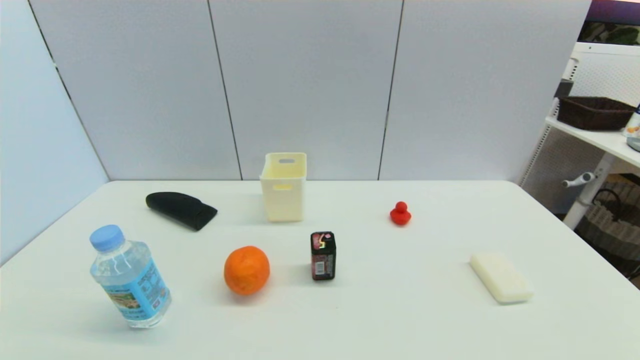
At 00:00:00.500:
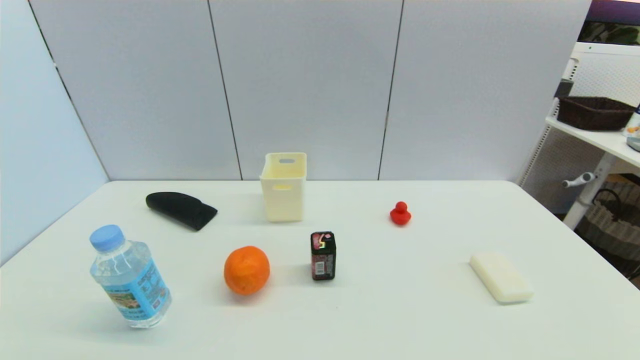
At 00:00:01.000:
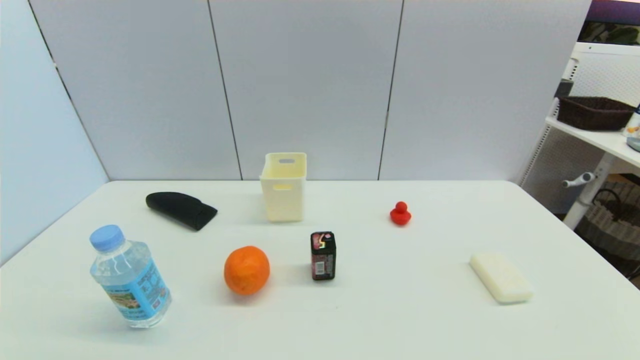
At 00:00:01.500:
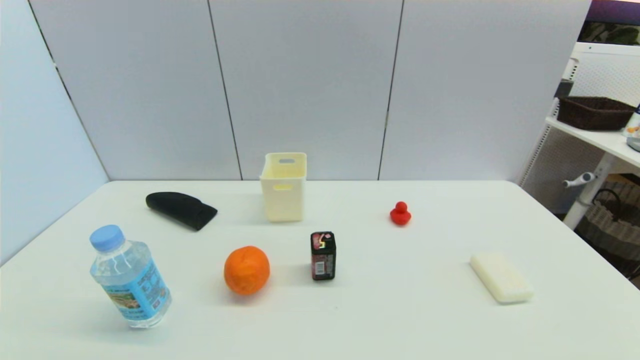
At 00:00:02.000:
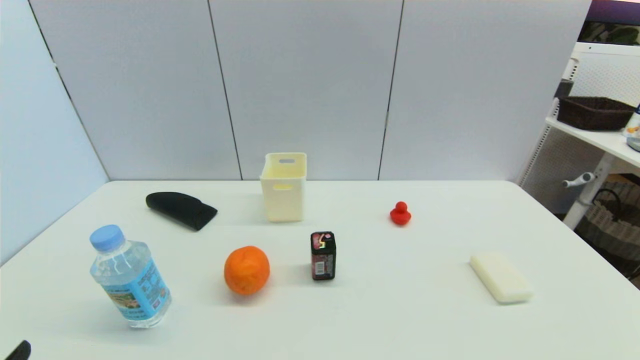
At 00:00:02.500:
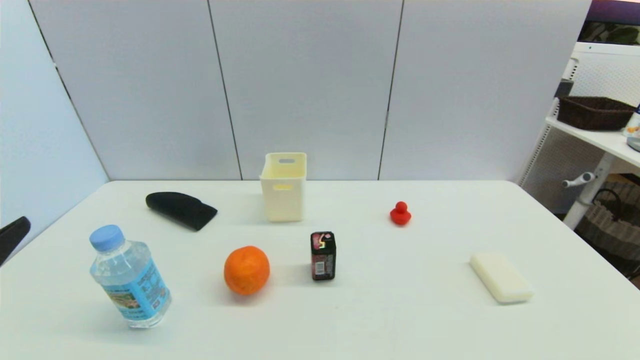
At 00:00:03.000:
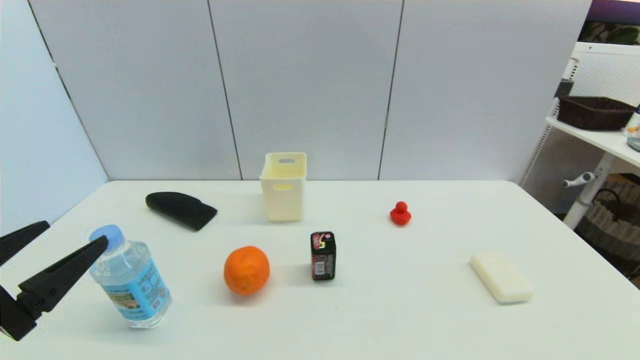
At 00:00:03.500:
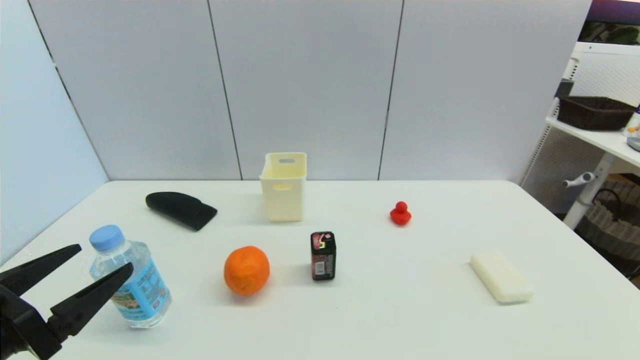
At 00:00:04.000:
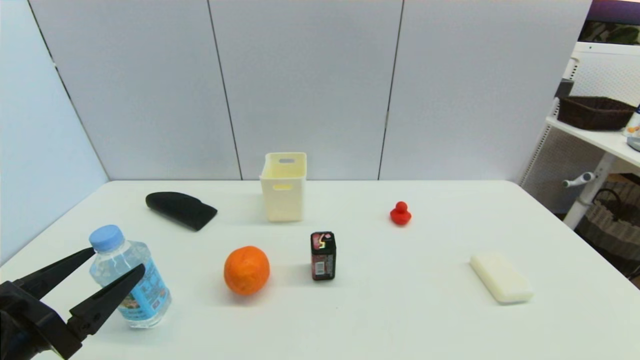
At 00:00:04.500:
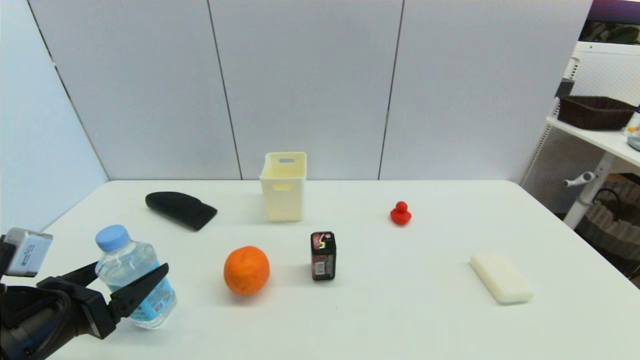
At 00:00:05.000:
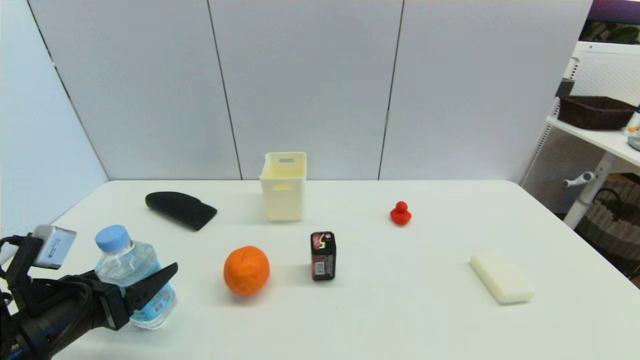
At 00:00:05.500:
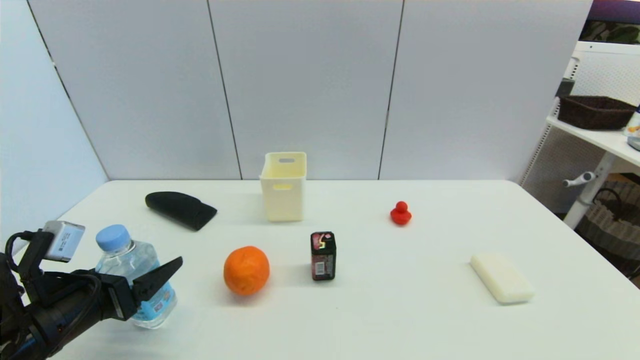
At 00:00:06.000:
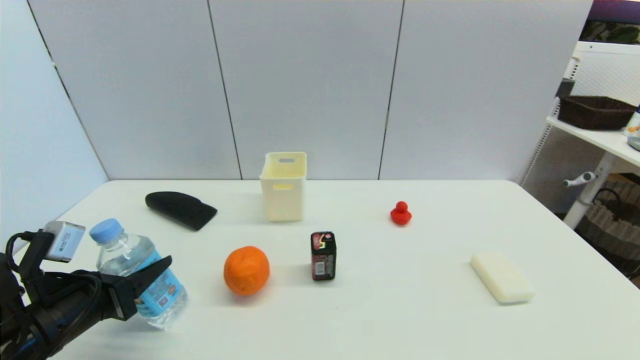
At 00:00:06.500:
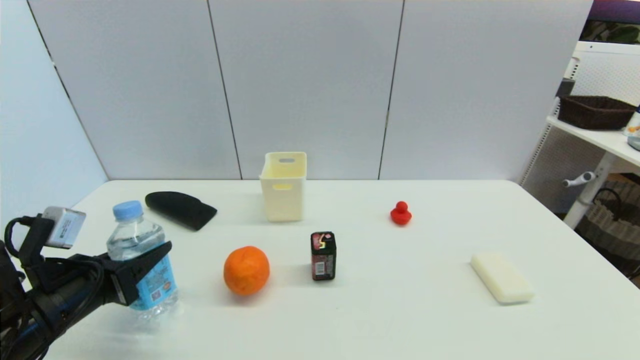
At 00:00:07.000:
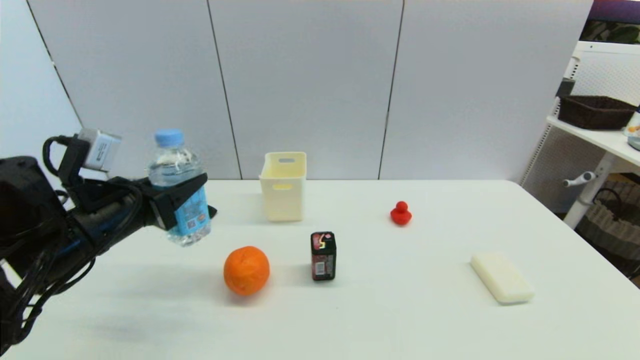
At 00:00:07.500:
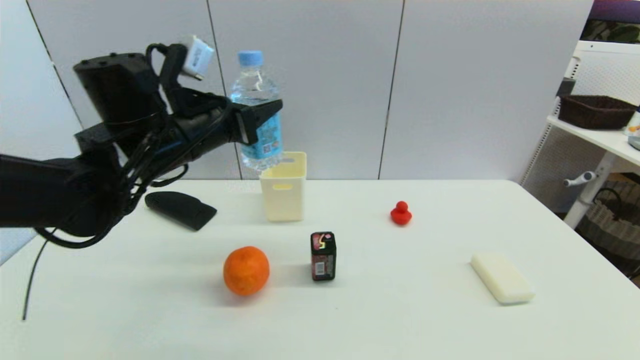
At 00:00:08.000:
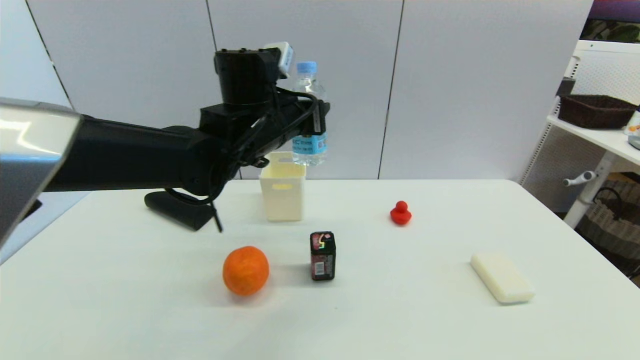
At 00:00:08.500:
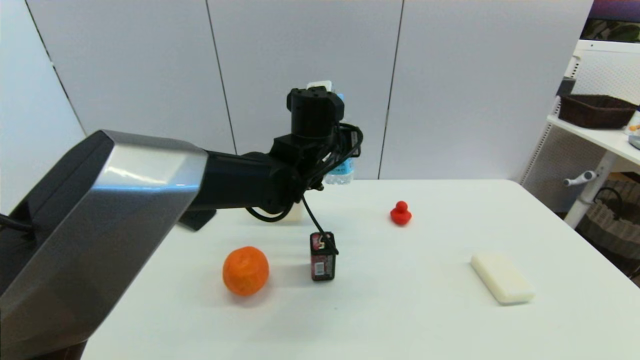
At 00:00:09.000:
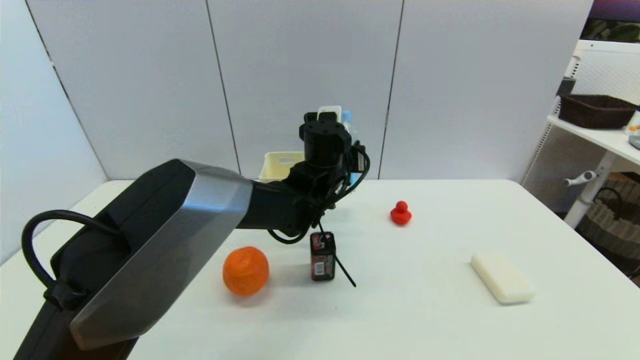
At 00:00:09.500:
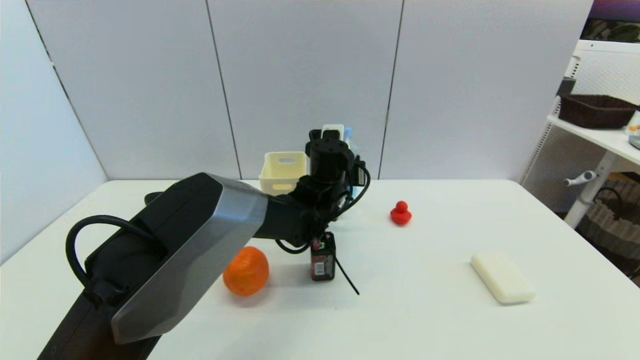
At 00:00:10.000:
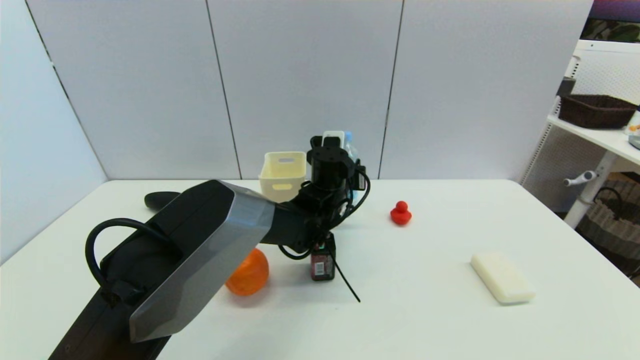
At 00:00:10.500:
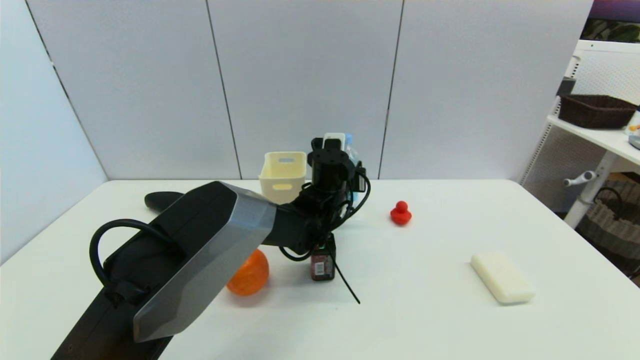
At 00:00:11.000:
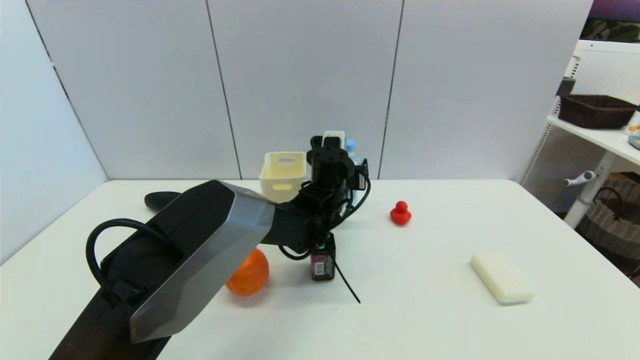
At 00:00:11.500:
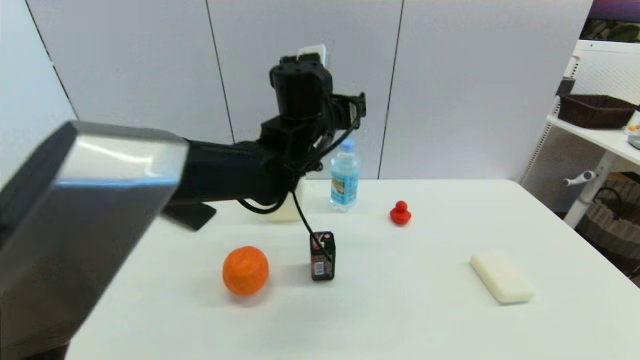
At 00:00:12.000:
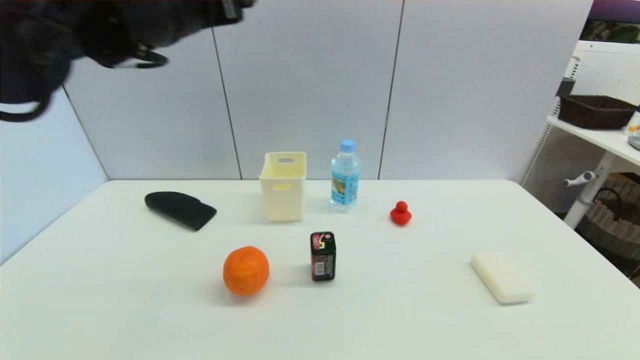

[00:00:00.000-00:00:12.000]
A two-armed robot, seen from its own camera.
Step, 00:00:02.000 to 00:00:06.000: Grasp the soda water with left gripper.
Step, 00:00:06.500 to 00:00:10.500: Place the soda water on the table with left gripper.
00:00:02.000 to 00:00:04.000: The left gripper travels forward by roughly 10 cm.
00:00:04.000 to 00:00:06.000: The left gripper shifts roughly 5 cm forward, and closes its fingers.
00:00:06.000 to 00:00:08.000: The left gripper moves to the right, forward and upward, about 35 cm.
00:00:08.000 to 00:00:10.000: The left gripper heads downward and to the right, covering approximately 15 cm.
00:00:10.000 to 00:00:12.000: The left gripper shifts about 35 cm upward, to the left and backward, and opens up.

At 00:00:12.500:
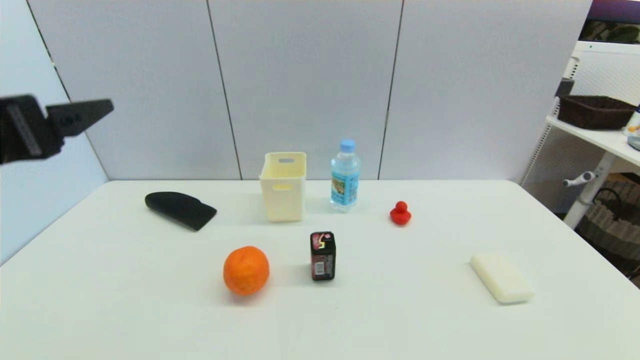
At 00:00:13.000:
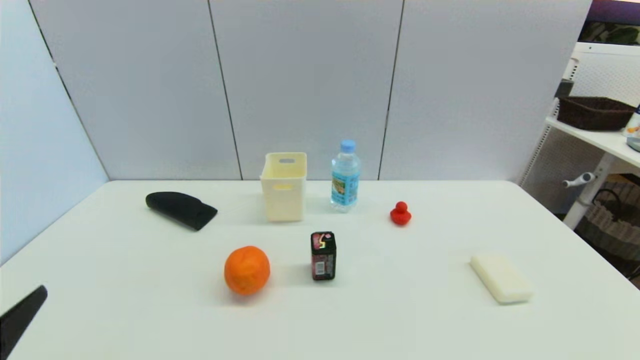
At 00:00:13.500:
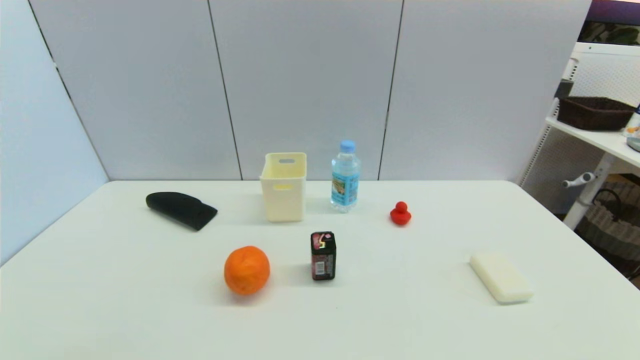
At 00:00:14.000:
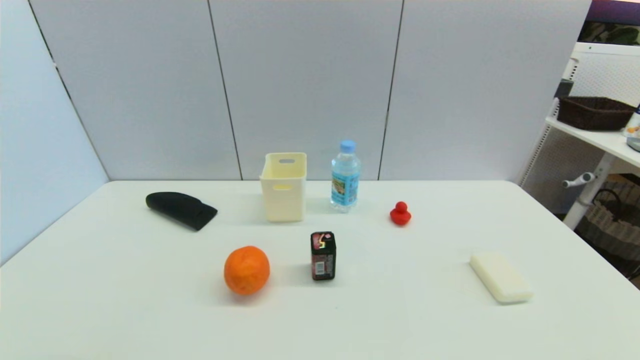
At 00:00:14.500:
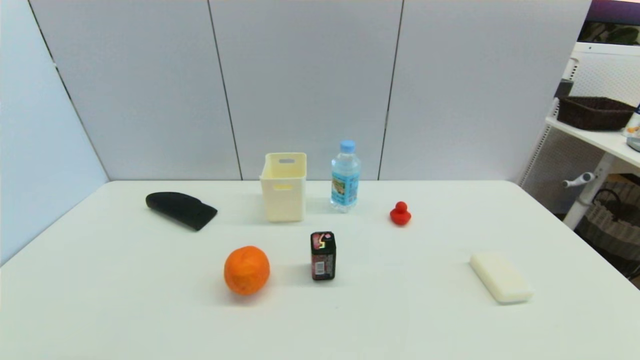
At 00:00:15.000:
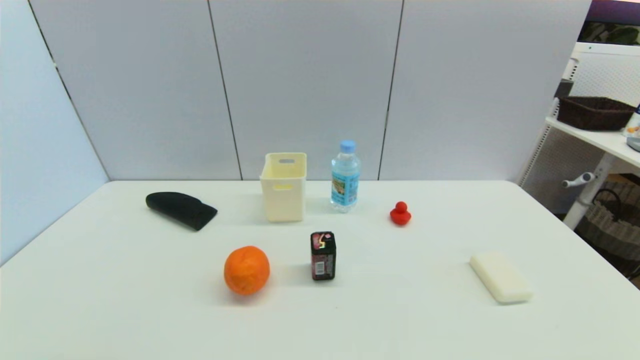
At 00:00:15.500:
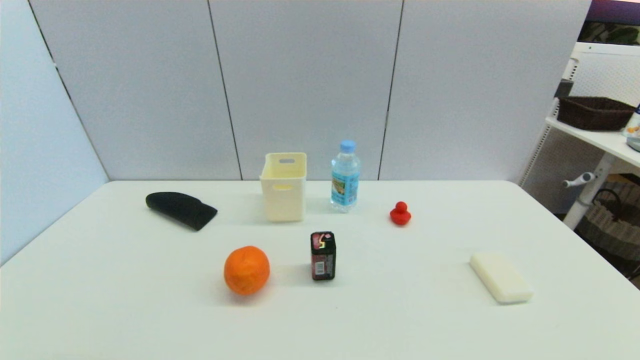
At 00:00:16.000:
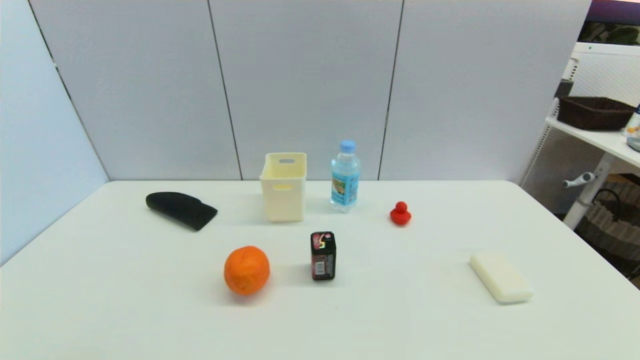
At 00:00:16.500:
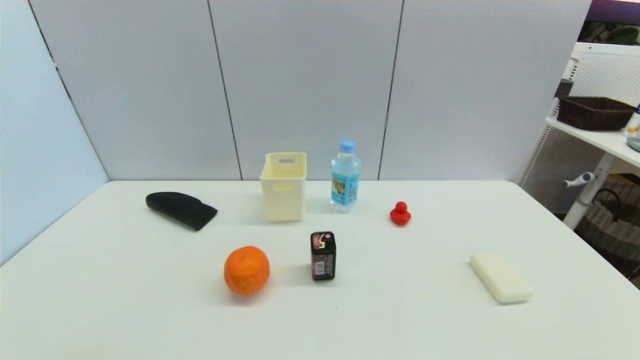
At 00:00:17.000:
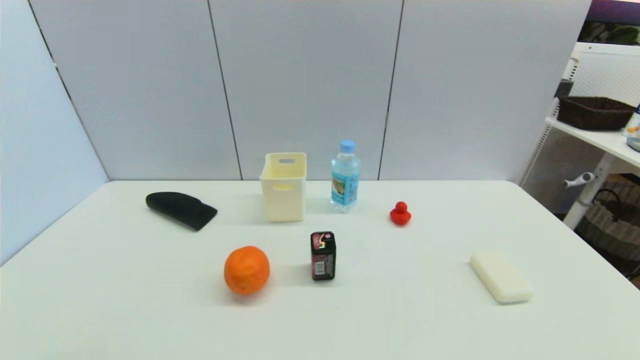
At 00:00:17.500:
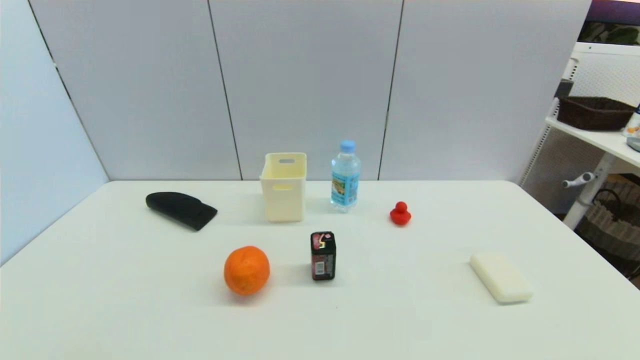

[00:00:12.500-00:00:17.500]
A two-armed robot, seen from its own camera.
00:00:12.500 to 00:00:15.000: The left gripper goes approximately 30 cm downward and backward.
